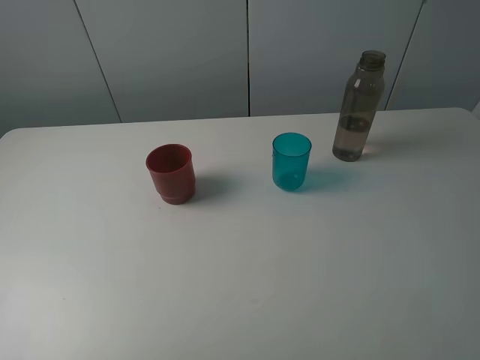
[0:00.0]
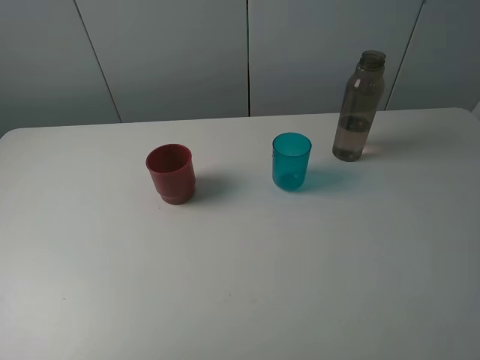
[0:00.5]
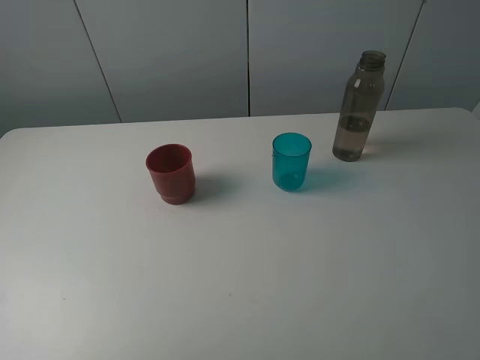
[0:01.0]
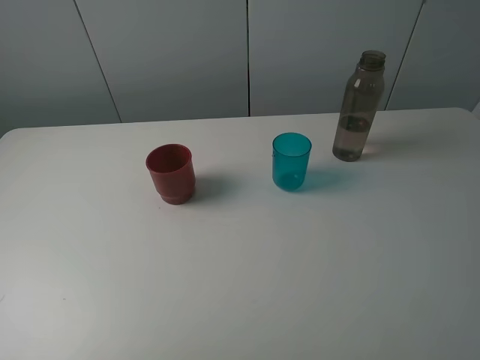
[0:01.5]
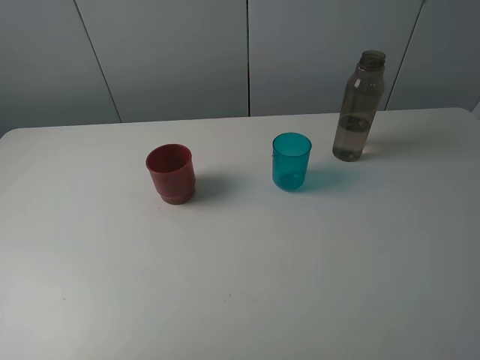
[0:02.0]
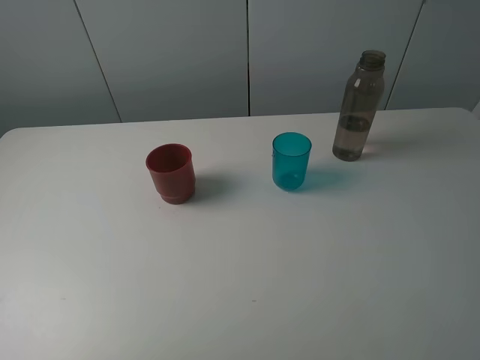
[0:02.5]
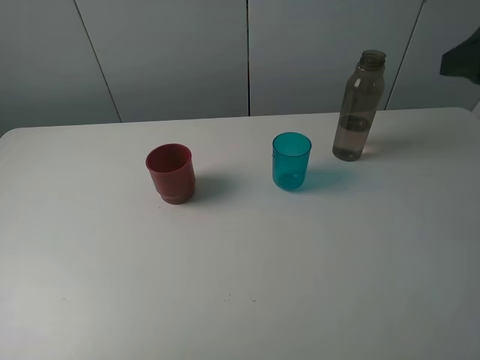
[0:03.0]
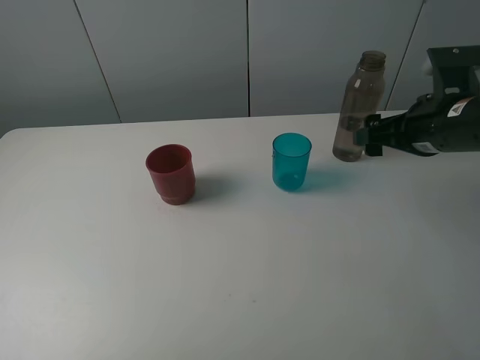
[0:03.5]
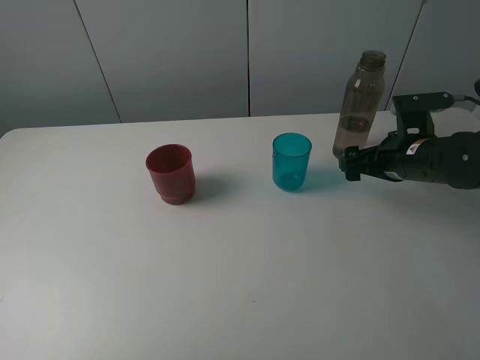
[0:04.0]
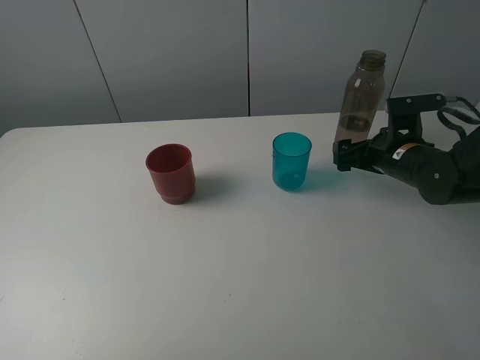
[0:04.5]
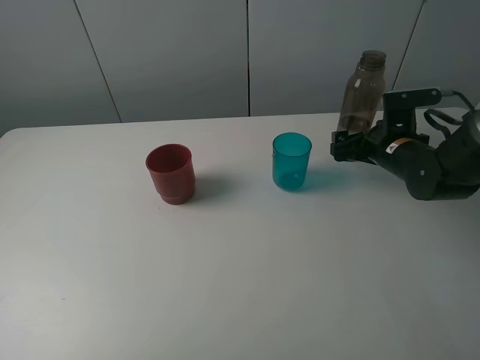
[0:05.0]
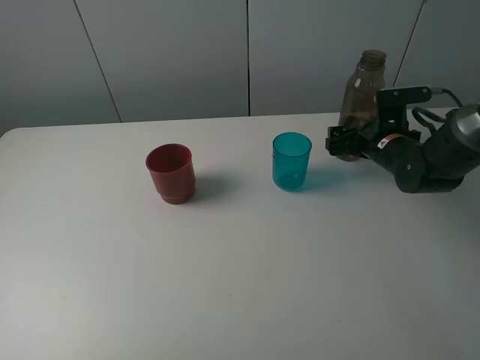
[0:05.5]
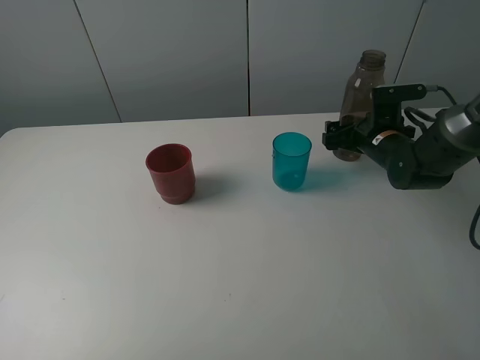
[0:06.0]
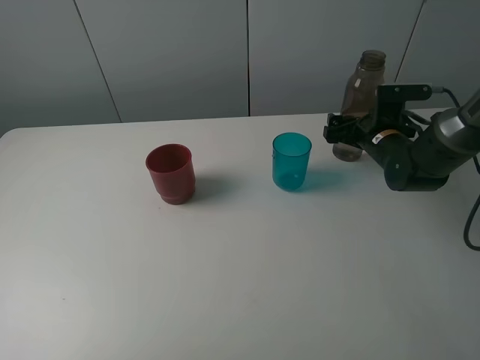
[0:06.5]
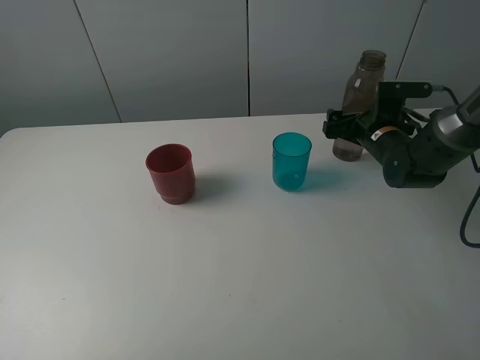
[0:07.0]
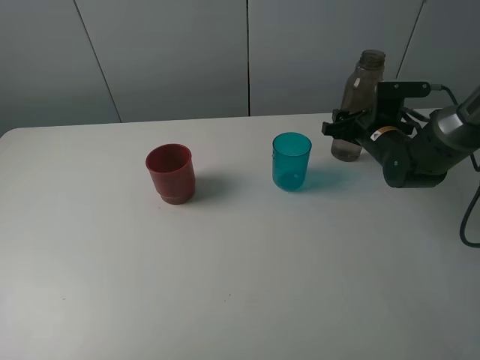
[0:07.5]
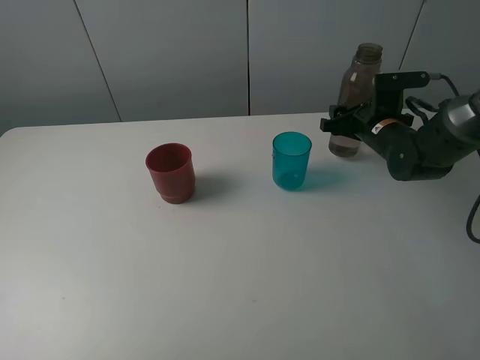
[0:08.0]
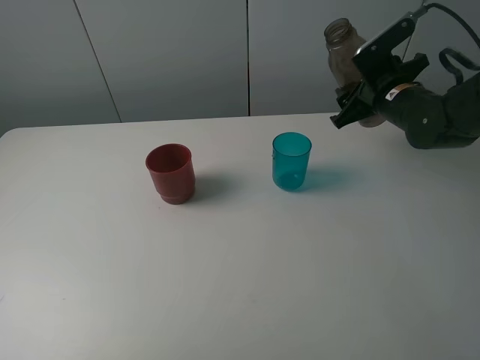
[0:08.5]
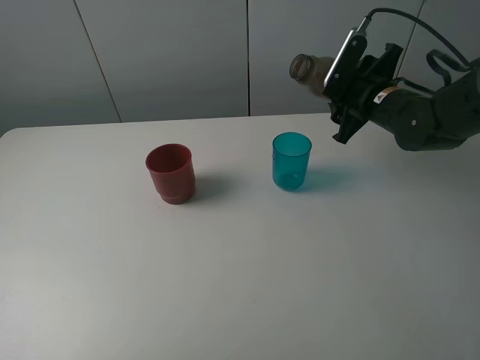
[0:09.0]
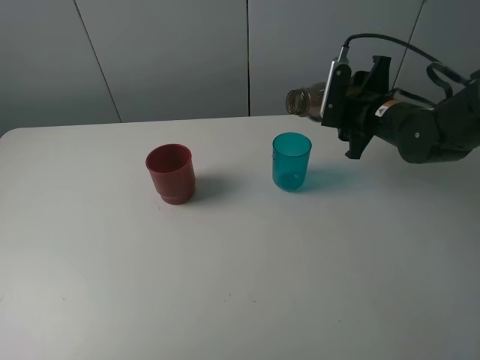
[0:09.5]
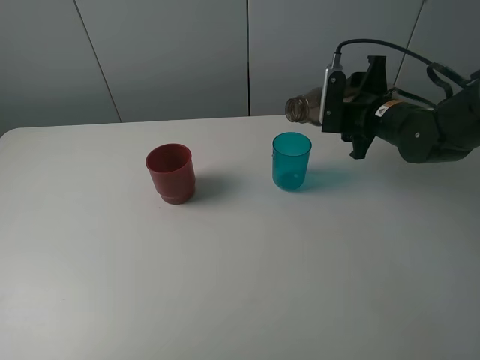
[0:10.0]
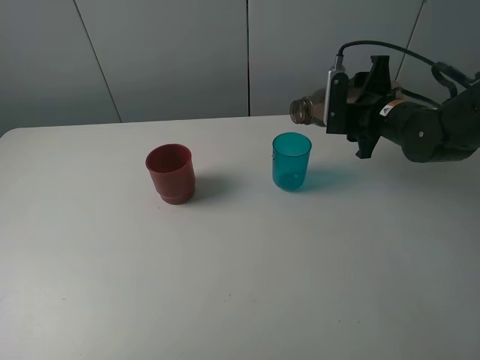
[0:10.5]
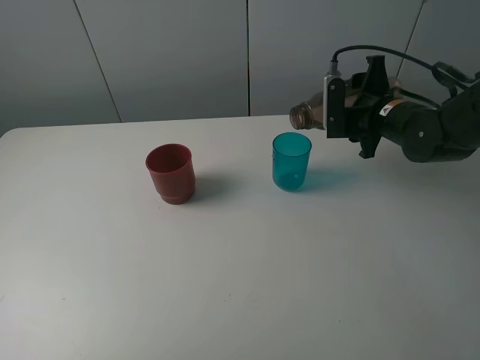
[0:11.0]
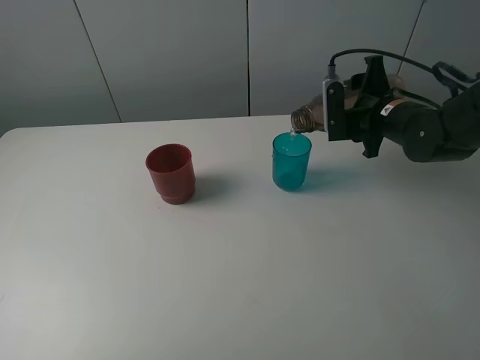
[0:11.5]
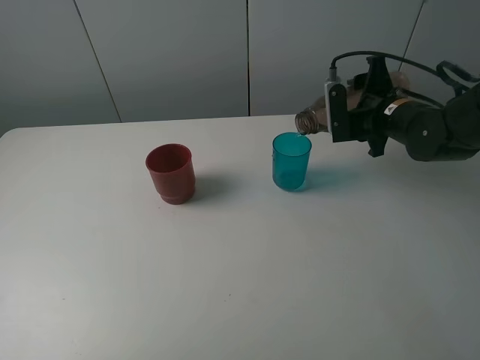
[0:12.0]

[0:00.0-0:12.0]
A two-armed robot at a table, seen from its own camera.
Task of the whole recording: pick up the bottle and pour water into the cup, then pick up the cup containing water and pour it into another cup.
Step, 0:00.0 to 0:07.5: Grasp the brown bottle with the right gripper.
0:00.0 to 0:02.0: Neither gripper changes place.
0:02.0 to 0:04.0: The right gripper travels forward and downward by some 35 cm.
0:04.0 to 0:06.0: The right gripper travels forward by about 10 cm.
0:06.0 to 0:08.0: The right gripper closes up.
0:10.0 to 0:12.0: The grippers stay close to where they were, moving slightly.

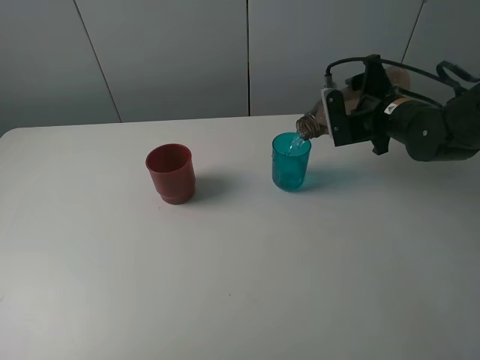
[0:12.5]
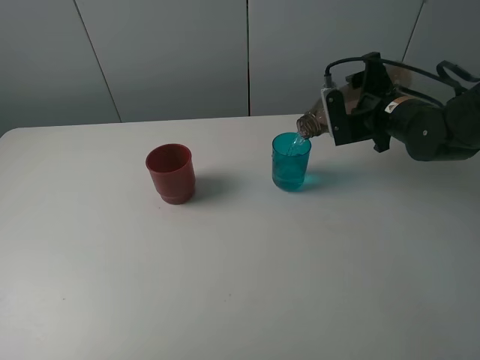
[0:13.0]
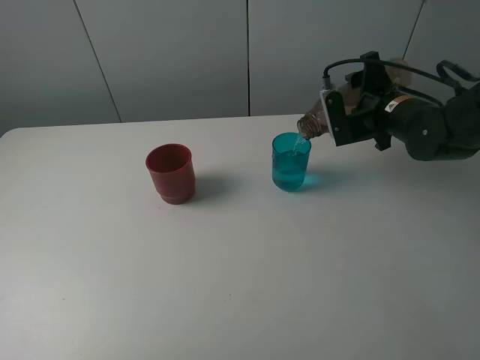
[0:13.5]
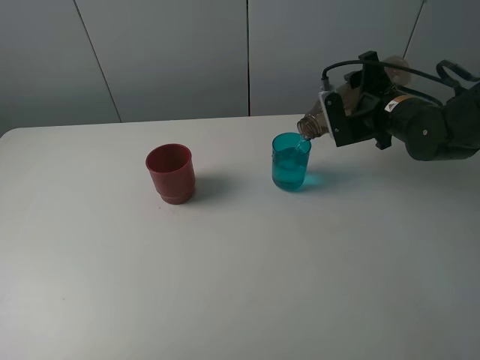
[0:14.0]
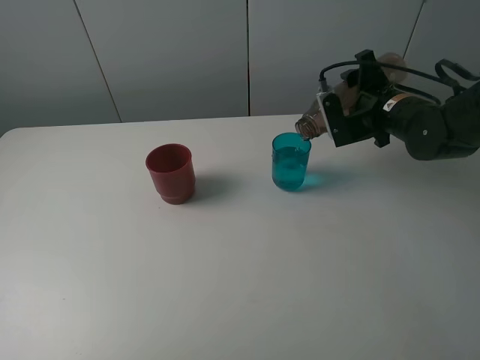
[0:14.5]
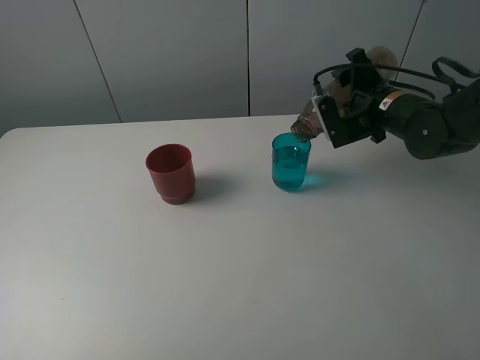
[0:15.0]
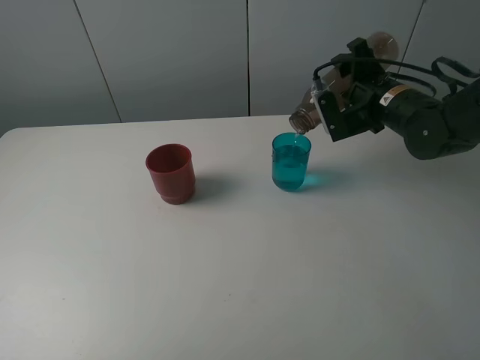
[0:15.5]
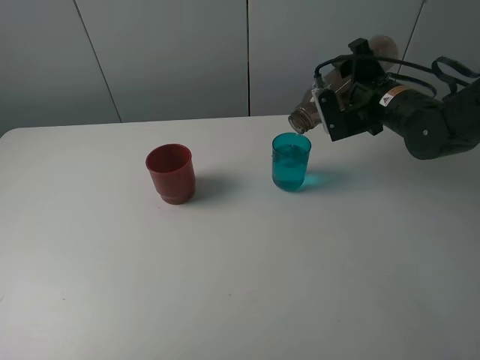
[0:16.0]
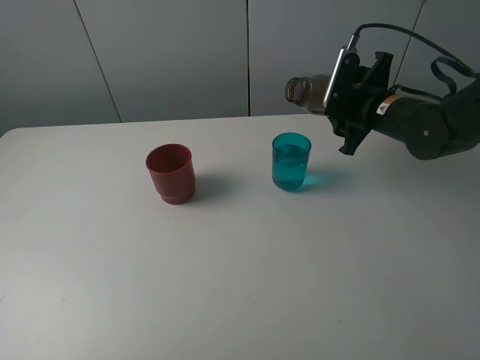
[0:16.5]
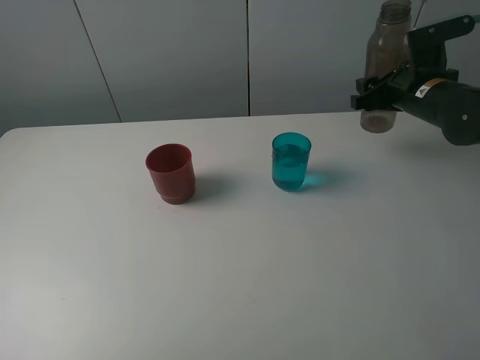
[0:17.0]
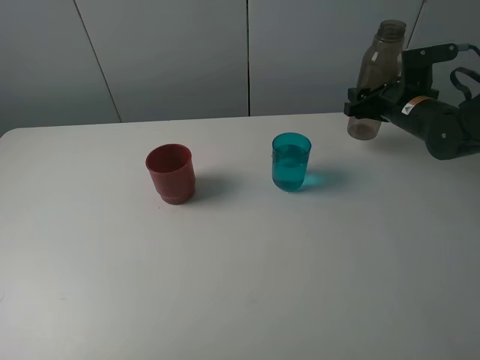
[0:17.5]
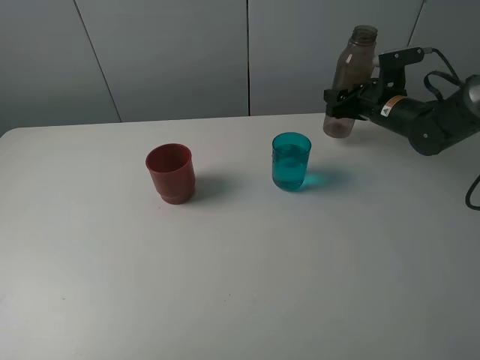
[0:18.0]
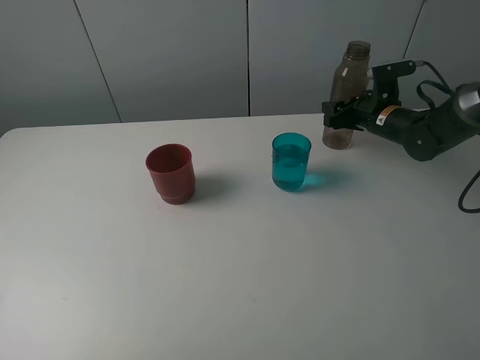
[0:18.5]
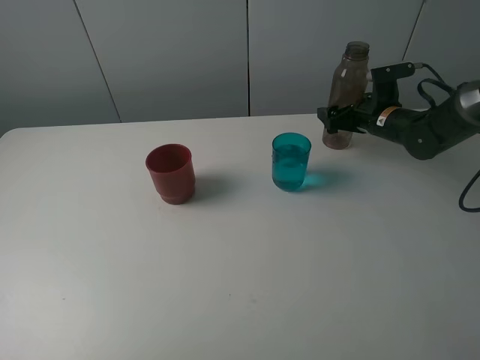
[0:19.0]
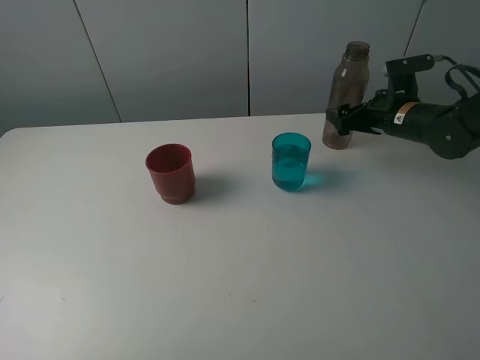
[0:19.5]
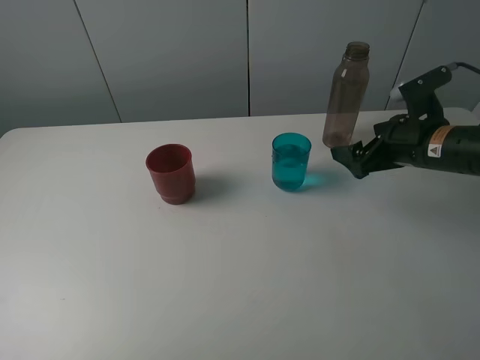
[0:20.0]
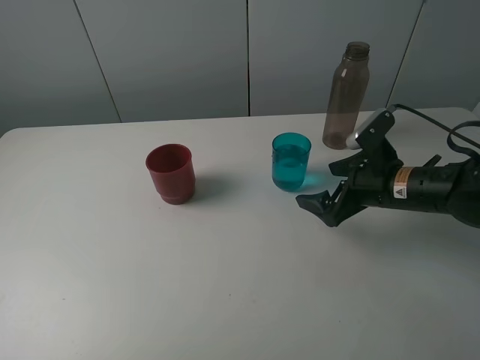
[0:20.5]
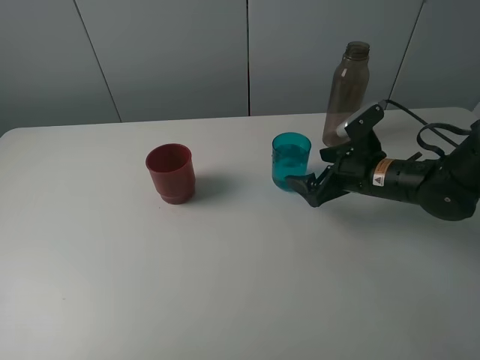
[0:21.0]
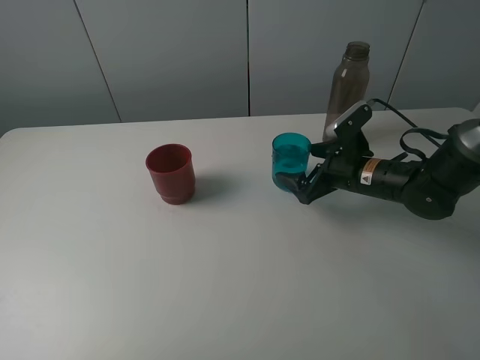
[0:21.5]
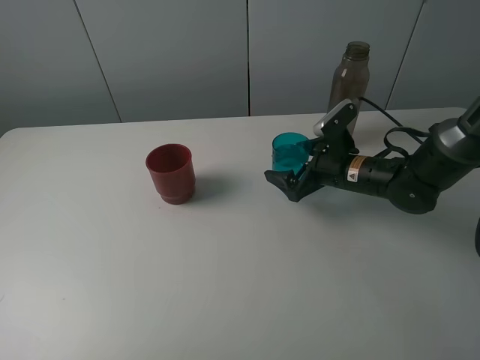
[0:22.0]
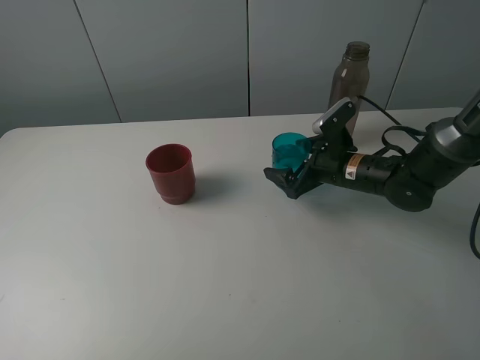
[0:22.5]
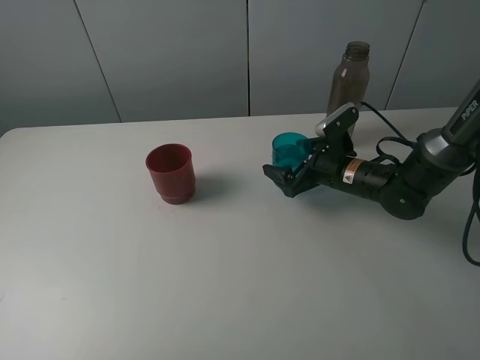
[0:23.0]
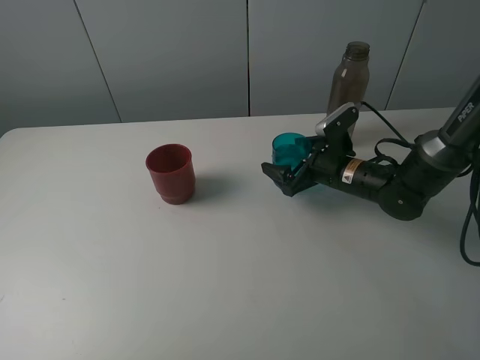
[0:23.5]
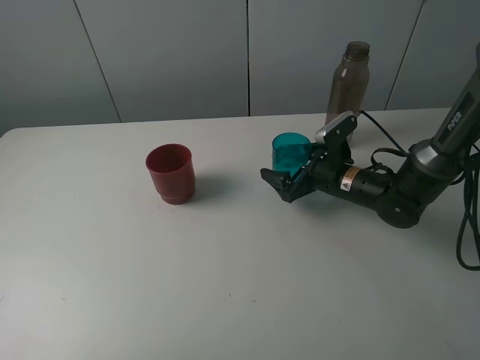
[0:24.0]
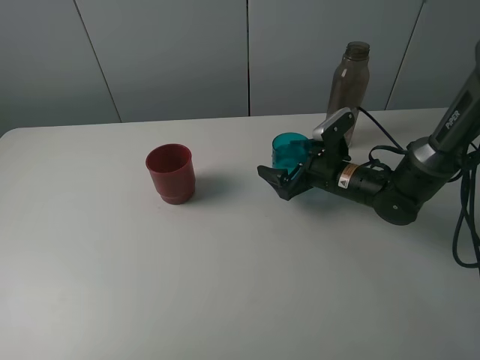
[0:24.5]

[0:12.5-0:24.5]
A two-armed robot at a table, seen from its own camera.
Task of the whole recording: pick up the bottle and pour water into the cup, then pick up the cup containing water and pour it into another cup.
Step, 0:12.5 to 0:16.0: Pour water from brown bottle to blue cup with the right gripper.
Step, 0:16.5 to 0:19.0: Place the brown bottle with the right gripper.
0:12.5 to 0:14.5: The grippers make only small movements.
0:16.5 to 0:18.5: The right gripper moves forward and downward, some 10 cm.
0:18.5 to 0:20.5: The right gripper travels backward by roughly 15 cm, and opens its fingers.
0:20.5 to 0:22.5: The right gripper travels forward by some 5 cm.
0:22.5 to 0:24.5: There are only small adjustments of the grippers.

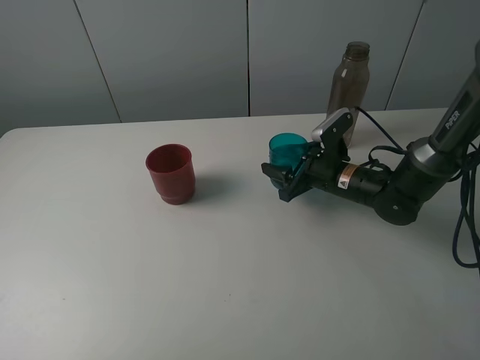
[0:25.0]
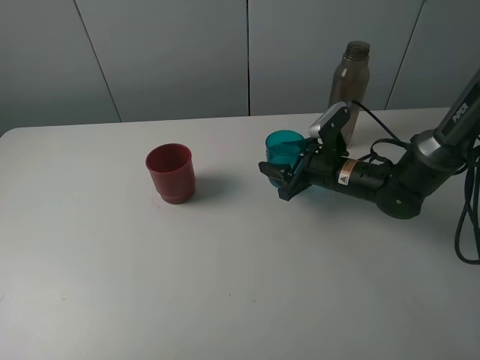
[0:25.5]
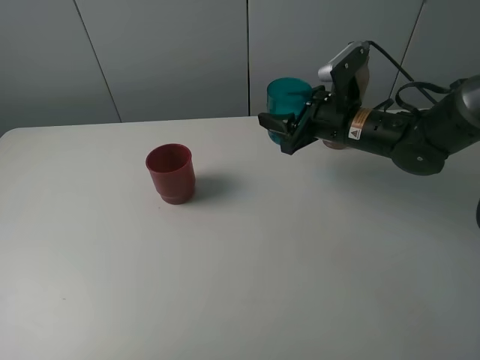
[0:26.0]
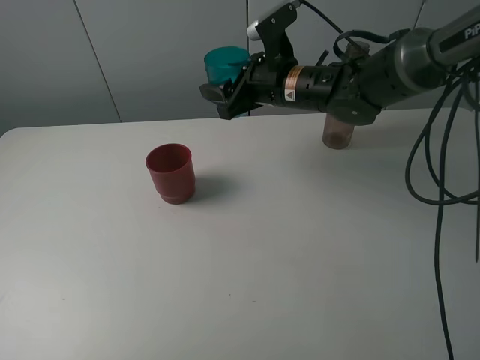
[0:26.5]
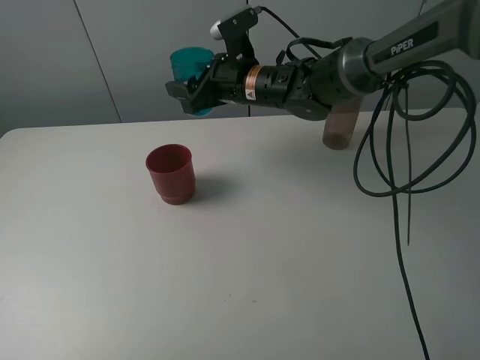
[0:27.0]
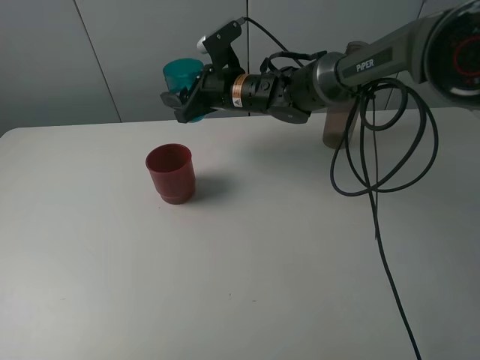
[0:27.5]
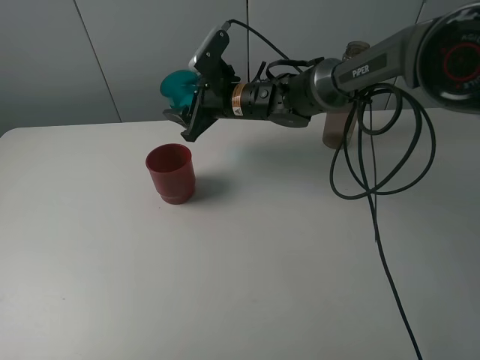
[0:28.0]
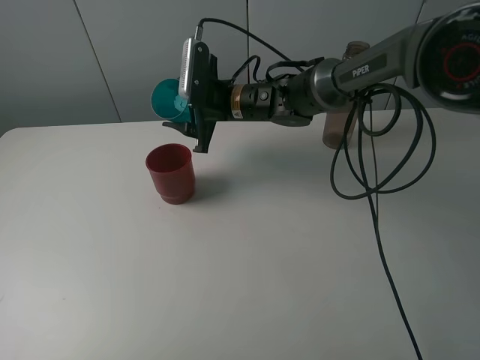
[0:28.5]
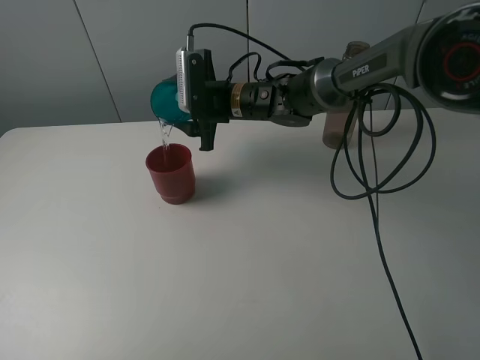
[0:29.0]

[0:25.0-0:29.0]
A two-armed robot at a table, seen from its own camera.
Task of the whole recording: pick up the bottle and pour water into the cup, then pick up the cup containing water and pour it into another cup.
0:25.0 to 0:27.0: The right gripper travels to the left, upward and forward by approximately 20 cm.
